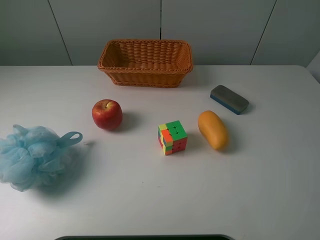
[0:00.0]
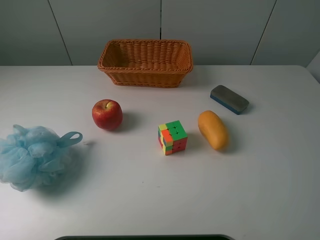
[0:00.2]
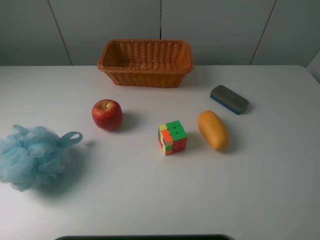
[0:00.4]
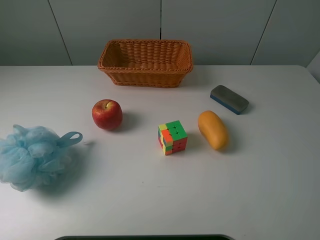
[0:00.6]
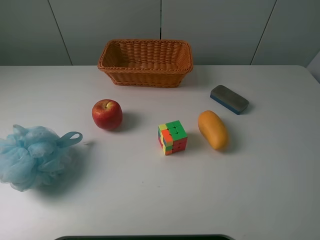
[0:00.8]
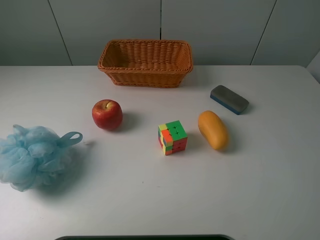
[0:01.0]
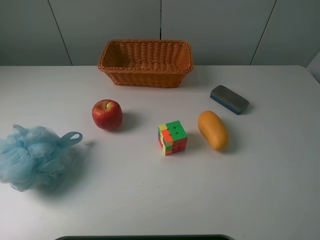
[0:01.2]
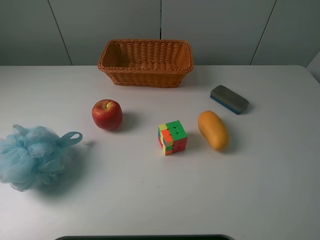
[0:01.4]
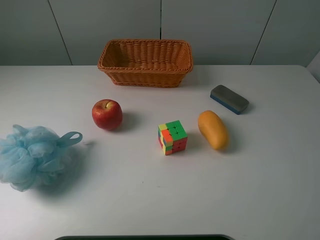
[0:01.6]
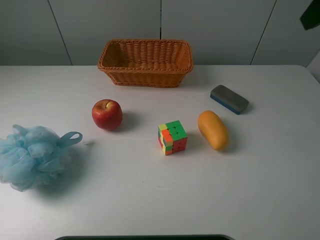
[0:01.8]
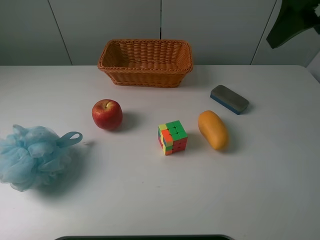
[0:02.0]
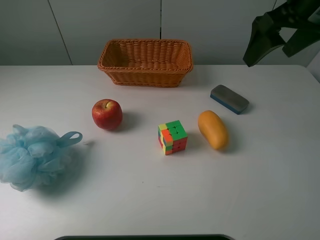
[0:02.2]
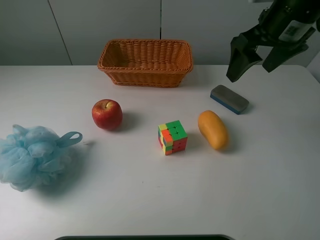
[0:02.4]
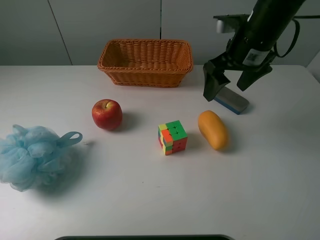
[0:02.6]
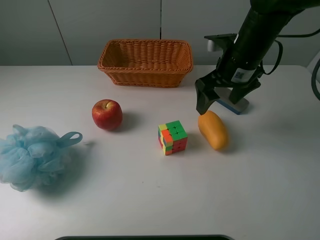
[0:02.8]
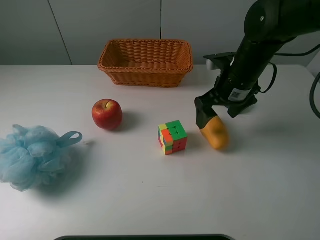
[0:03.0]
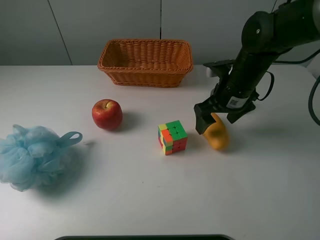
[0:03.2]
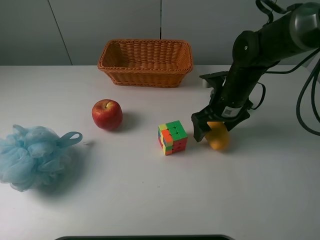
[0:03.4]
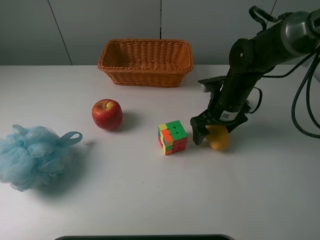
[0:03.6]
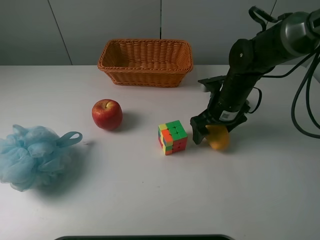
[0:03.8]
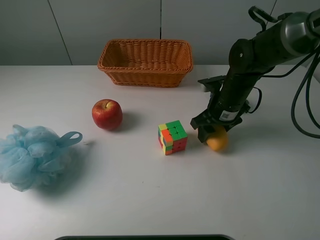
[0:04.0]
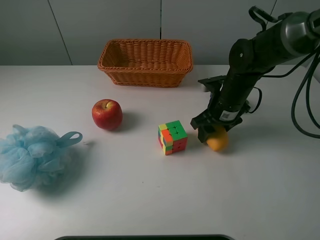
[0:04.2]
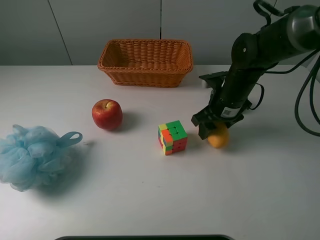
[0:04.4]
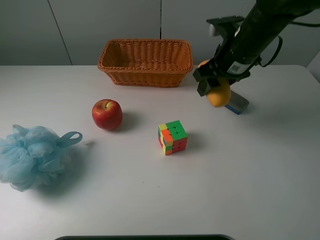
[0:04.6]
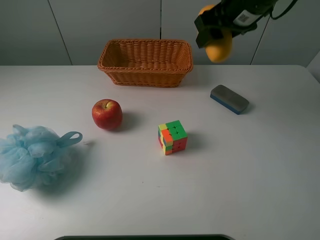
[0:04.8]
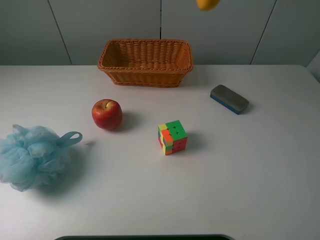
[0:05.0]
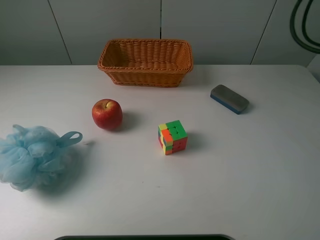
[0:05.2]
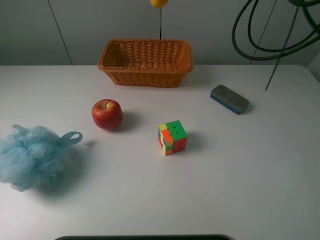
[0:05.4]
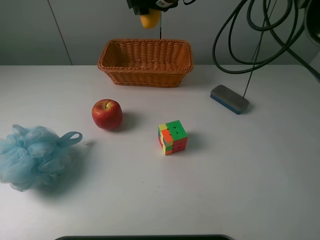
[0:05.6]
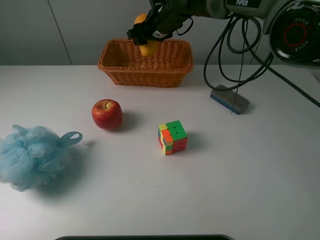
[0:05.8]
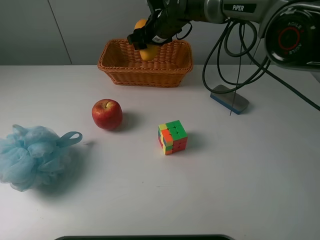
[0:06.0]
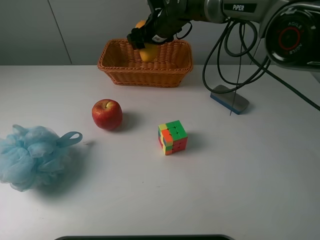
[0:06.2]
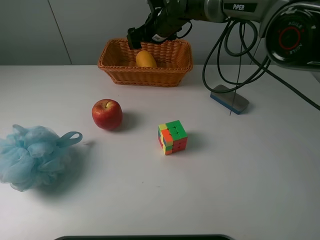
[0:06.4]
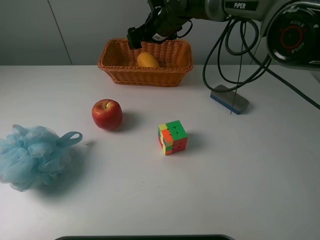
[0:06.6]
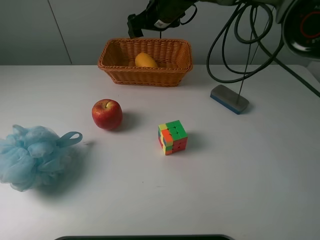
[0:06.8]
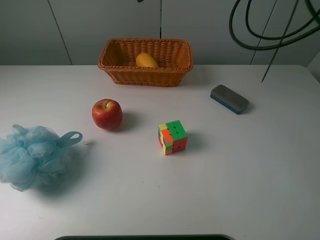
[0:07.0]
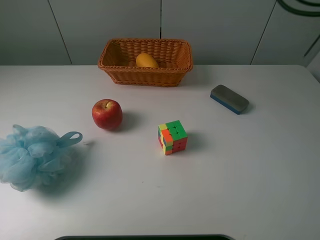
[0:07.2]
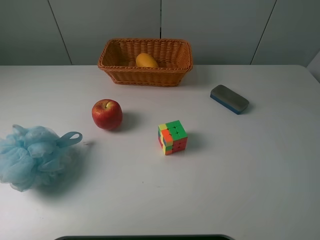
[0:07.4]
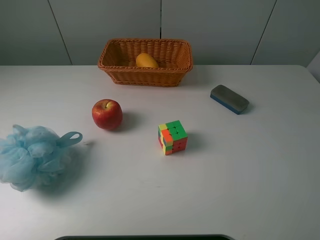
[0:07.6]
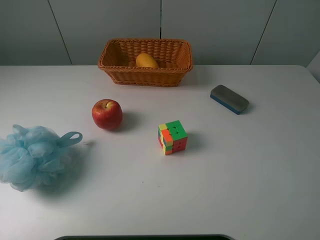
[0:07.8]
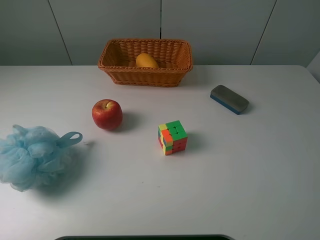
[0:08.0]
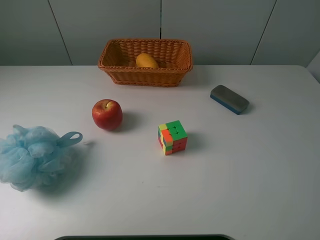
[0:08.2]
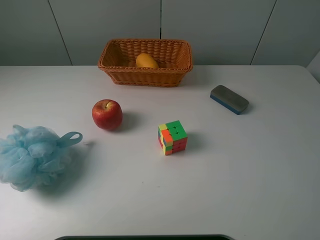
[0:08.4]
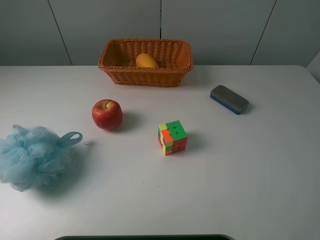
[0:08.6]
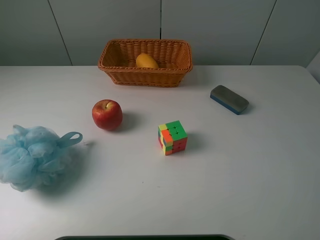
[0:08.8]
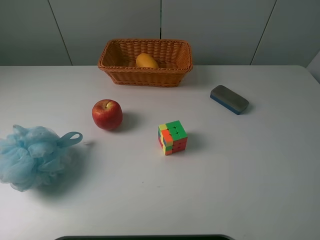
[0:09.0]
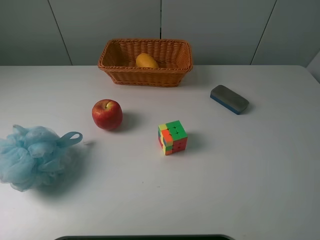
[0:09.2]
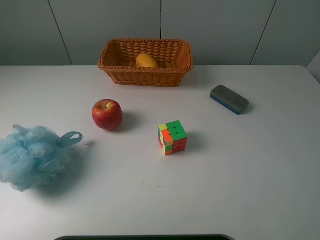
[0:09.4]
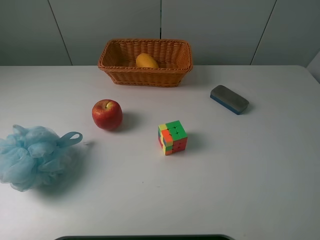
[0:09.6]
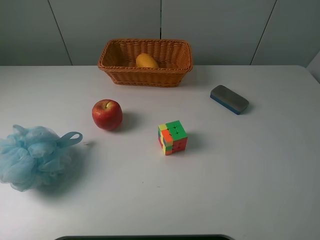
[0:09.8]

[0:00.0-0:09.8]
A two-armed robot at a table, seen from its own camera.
Task of the whole recording: use a picker to grab the item closest to the cube and place it in the basket.
Step, 0:00.0 to 0:03.8: Grasp the mango with the right gripper.
Step, 0:04.0 to 0:06.4: Place the mango into the basket with the right gripper.
0:01.4 to 0:02.8: The right gripper travels downward, forward and to the left by some 35 cm.
0:02.8 to 0:04.2: The right gripper moves downward, roughly 10 cm, and closes its fingers.
0:04.2 to 0:05.6: The right gripper goes about 25 cm forward, upward and to the left.
0:05.6 to 0:07.0: The right gripper moves upward and backward, some 10 cm, and opens up.
0:07.0 to 0:08.4: The right gripper is displaced backward and to the right by approximately 50 cm.

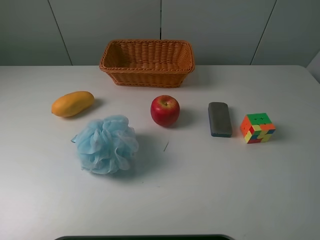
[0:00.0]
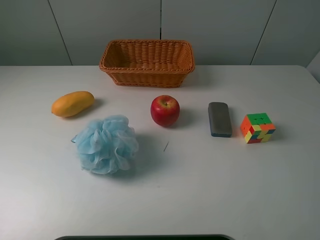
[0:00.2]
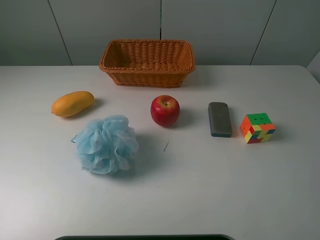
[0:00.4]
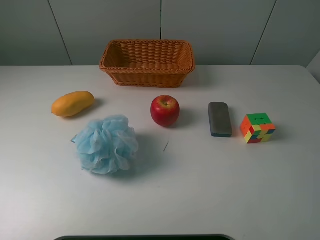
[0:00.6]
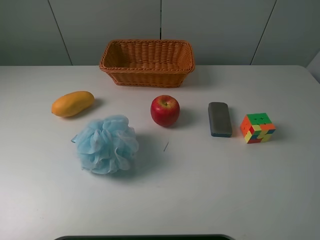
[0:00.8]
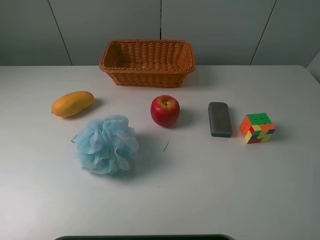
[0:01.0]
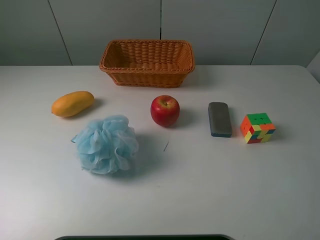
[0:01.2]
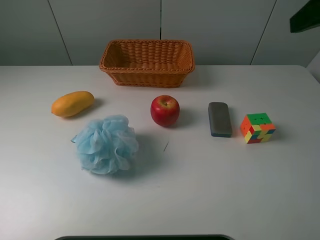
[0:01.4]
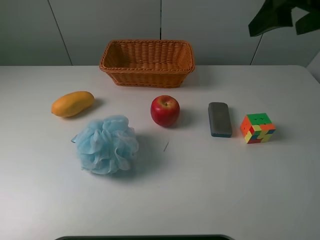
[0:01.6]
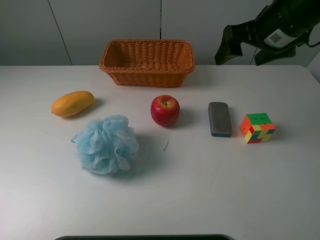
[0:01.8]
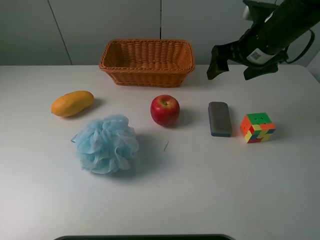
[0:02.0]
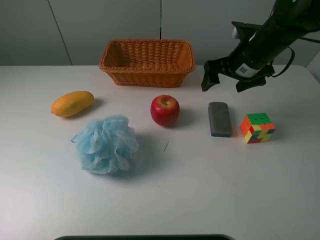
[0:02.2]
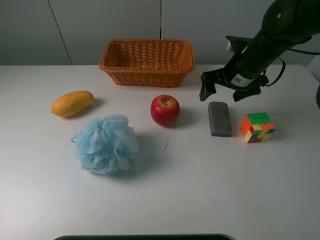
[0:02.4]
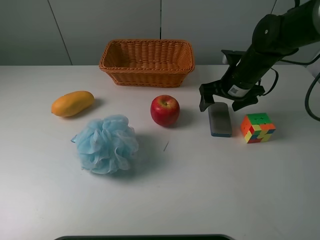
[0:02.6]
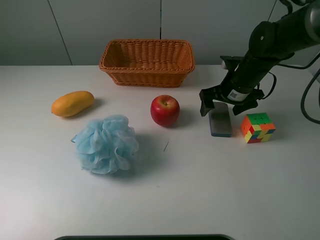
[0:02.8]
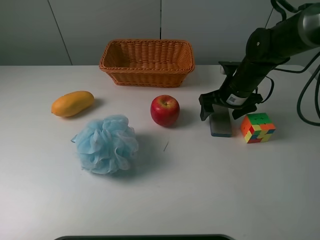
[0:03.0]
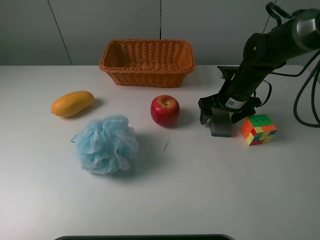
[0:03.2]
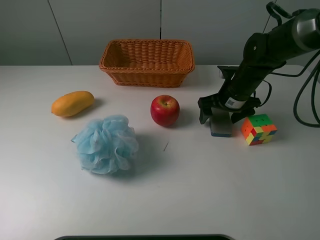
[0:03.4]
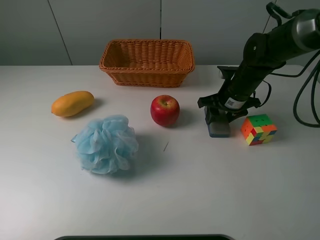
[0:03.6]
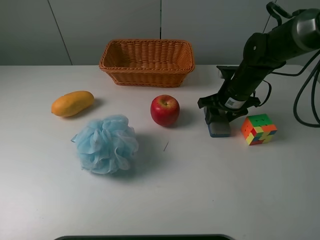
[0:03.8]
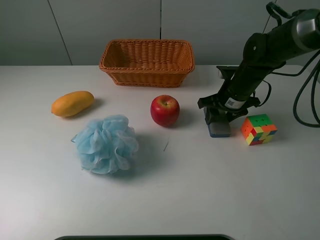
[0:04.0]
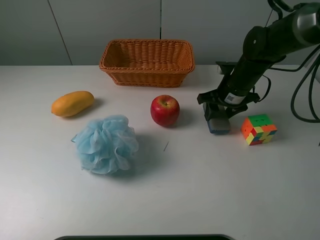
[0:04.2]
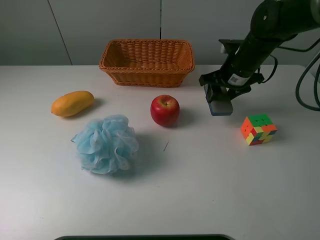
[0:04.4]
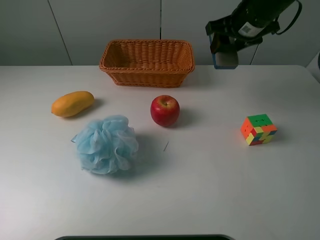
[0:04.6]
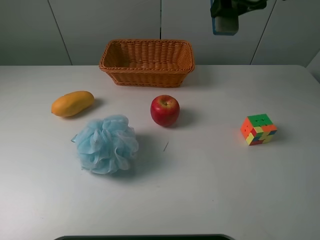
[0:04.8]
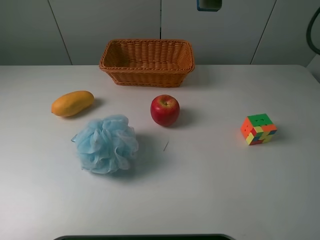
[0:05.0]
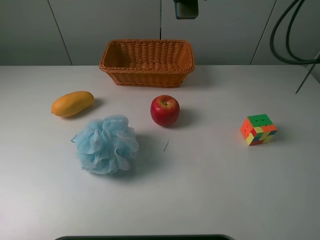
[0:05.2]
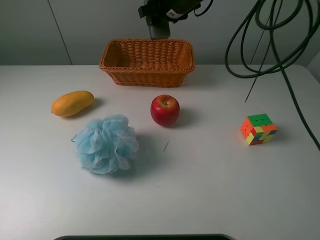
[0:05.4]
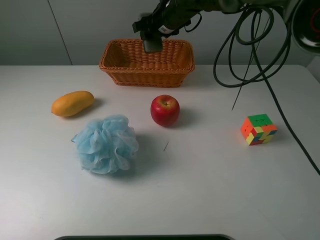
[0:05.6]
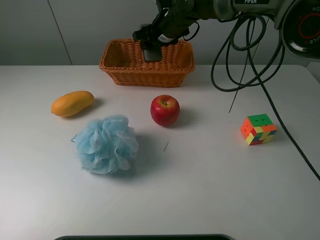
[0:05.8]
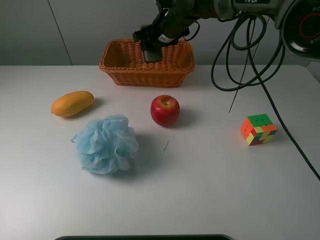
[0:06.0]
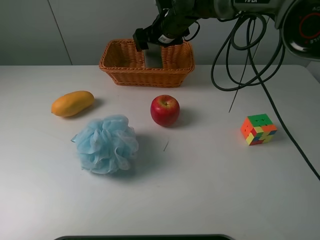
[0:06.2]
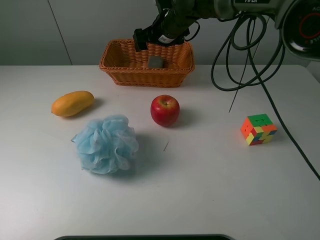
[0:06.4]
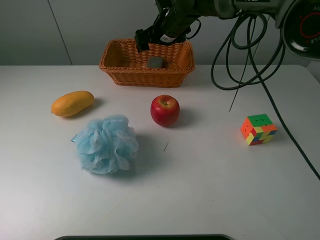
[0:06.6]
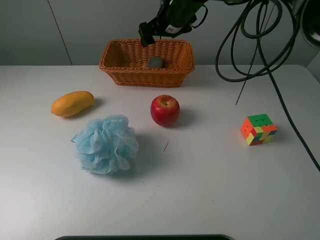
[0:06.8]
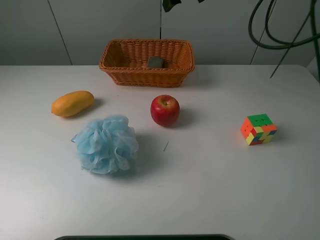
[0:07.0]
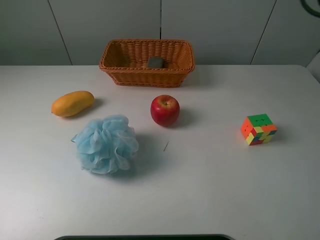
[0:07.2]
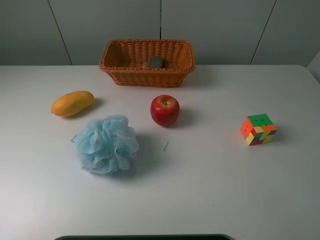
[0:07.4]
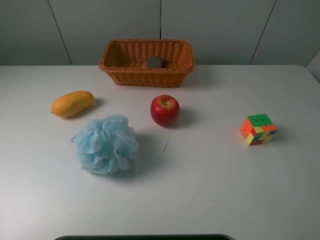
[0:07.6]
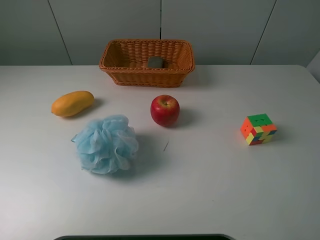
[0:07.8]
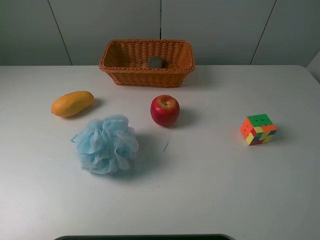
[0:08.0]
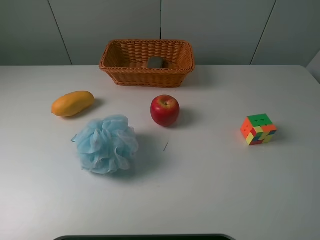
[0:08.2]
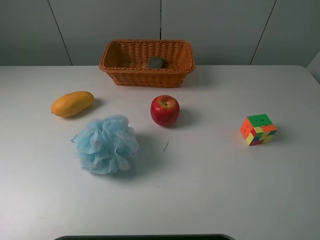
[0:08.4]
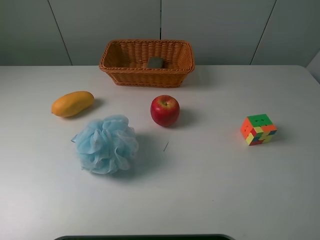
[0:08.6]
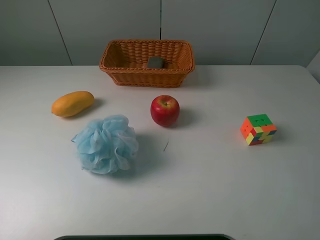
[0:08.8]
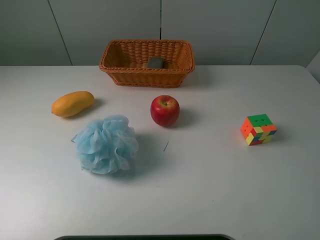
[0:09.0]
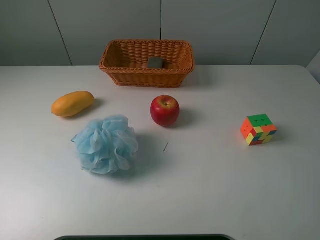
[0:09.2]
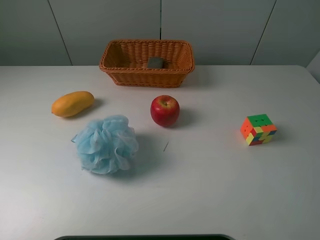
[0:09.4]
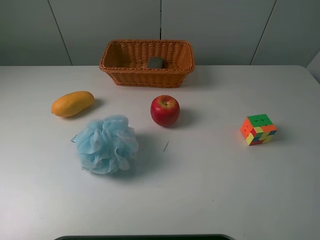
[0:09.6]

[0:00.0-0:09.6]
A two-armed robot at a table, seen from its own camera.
Task of the whole recording: use a picker to grab the item closest to the cube and place it in the basket.
Step, 0:00.0 to 0:03.6: Grasp the blackboard erasure with the right gripper.
Step, 0:03.8 to 0:06.6: Place the blackboard erasure into the basket with the right gripper.
0:00.0 to 0:01.6: The right gripper heads forward, covering roughly 25 cm.
0:01.6 to 0:03.2: The right gripper heads downward, covering about 25 cm.
0:03.2 to 0:04.8: The right gripper goes roughly 20 cm upward, and closes.
0:04.8 to 0:06.4: The right gripper travels to the left, downward and forward by about 20 cm, and opens.
0:06.4 to 0:08.0: The right gripper heads backward, upward and to the right, covering approximately 50 cm.
